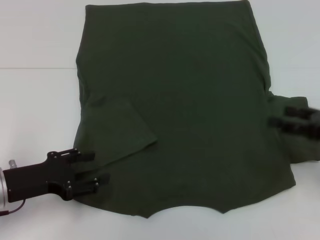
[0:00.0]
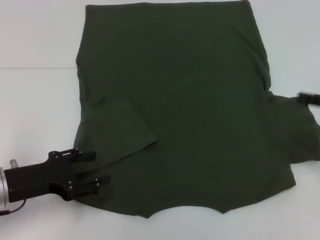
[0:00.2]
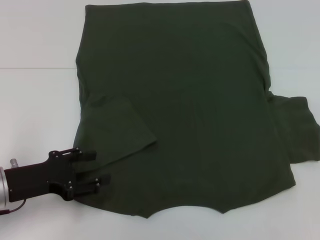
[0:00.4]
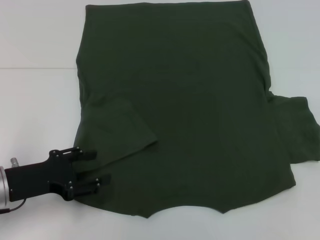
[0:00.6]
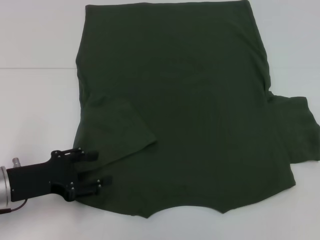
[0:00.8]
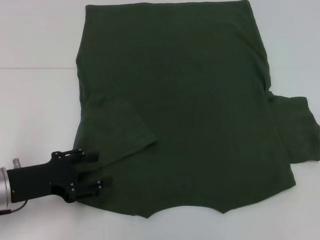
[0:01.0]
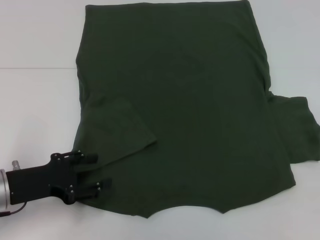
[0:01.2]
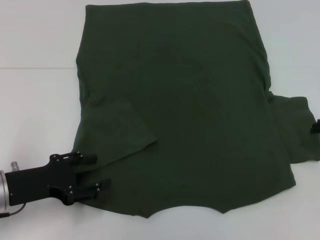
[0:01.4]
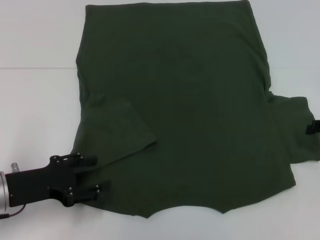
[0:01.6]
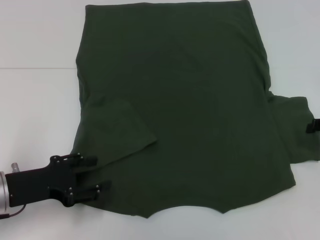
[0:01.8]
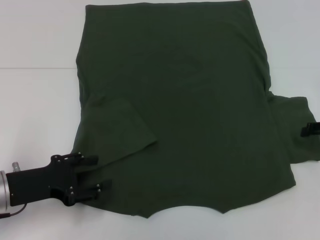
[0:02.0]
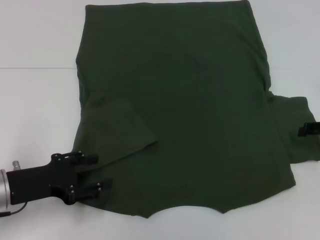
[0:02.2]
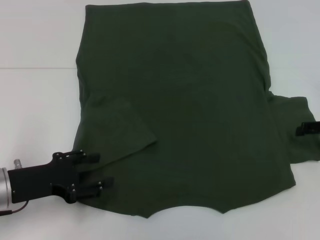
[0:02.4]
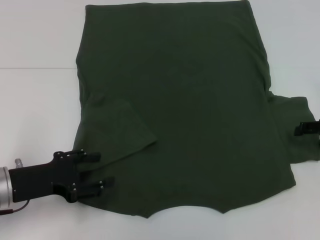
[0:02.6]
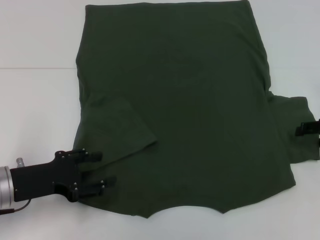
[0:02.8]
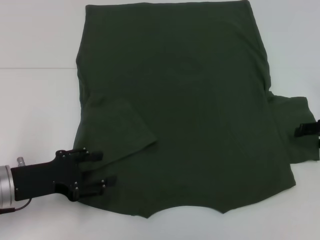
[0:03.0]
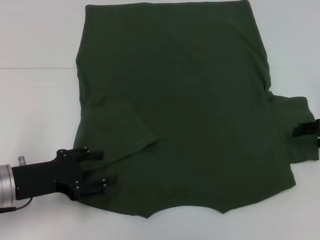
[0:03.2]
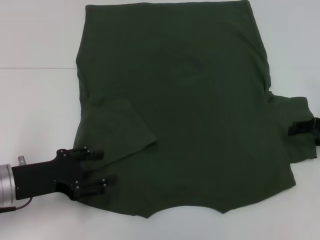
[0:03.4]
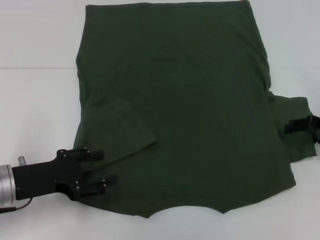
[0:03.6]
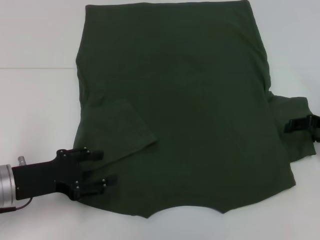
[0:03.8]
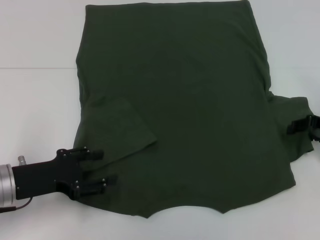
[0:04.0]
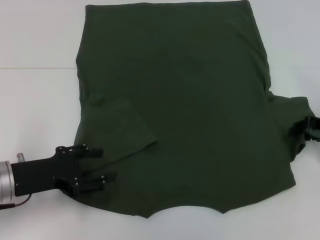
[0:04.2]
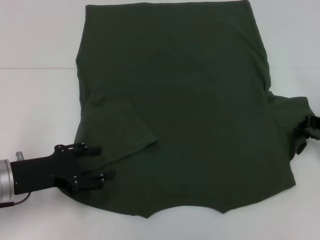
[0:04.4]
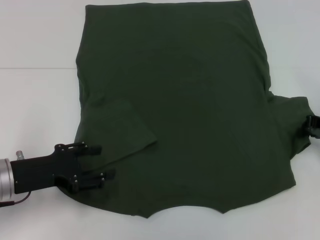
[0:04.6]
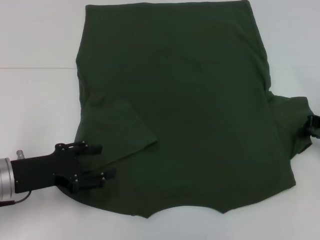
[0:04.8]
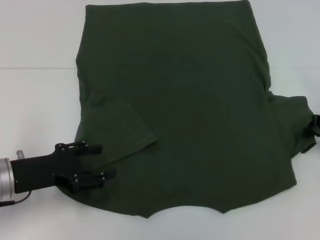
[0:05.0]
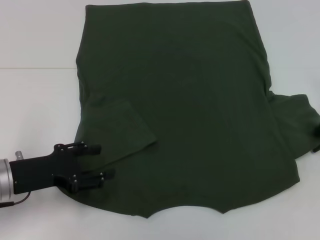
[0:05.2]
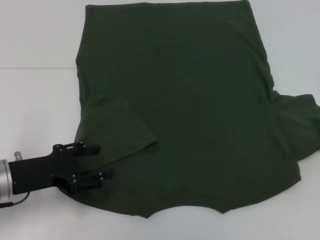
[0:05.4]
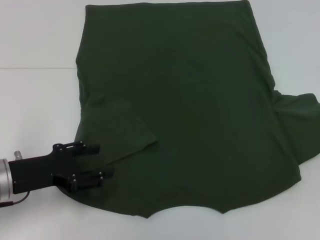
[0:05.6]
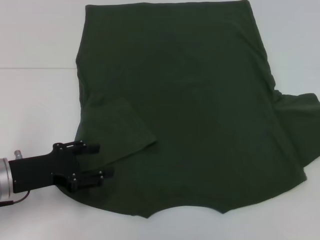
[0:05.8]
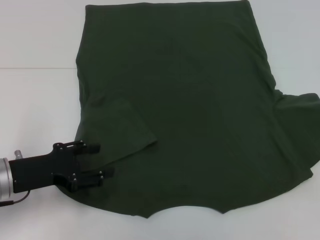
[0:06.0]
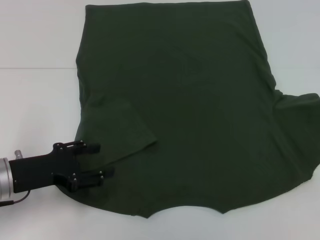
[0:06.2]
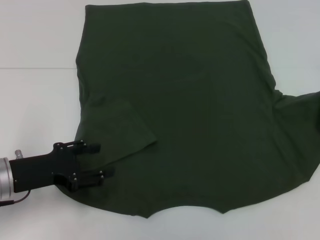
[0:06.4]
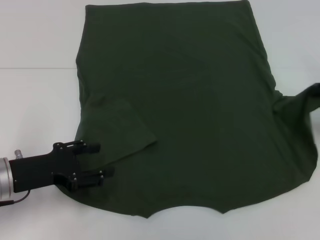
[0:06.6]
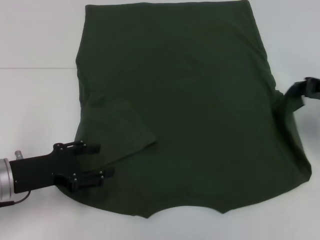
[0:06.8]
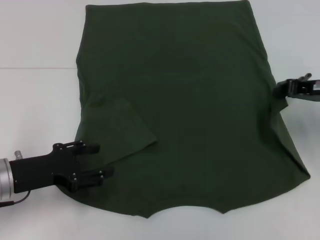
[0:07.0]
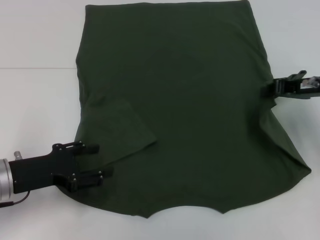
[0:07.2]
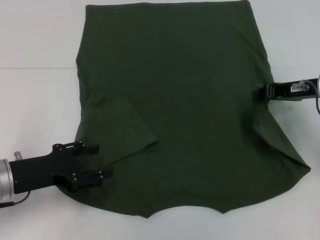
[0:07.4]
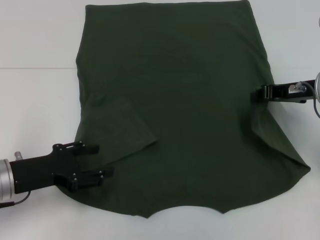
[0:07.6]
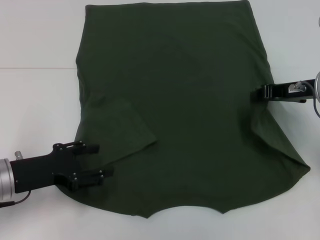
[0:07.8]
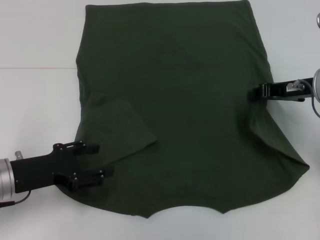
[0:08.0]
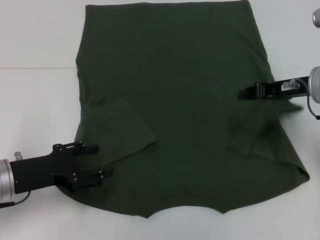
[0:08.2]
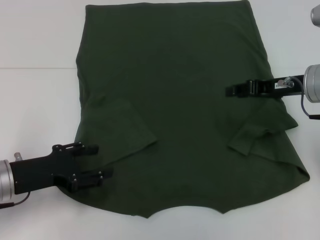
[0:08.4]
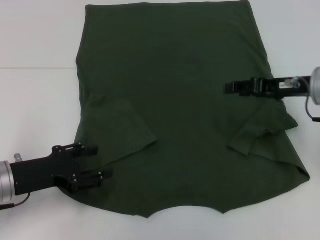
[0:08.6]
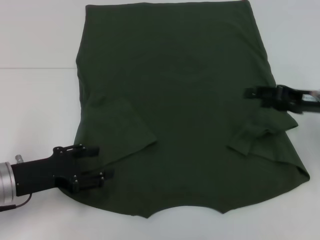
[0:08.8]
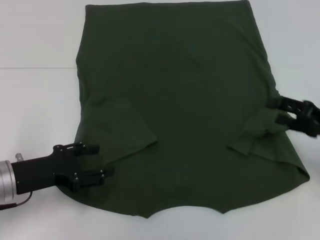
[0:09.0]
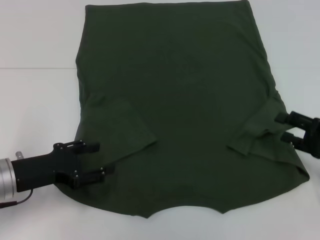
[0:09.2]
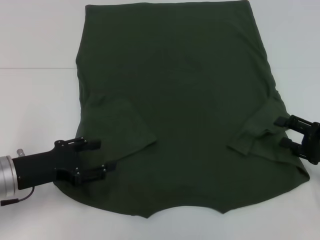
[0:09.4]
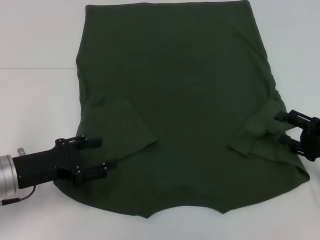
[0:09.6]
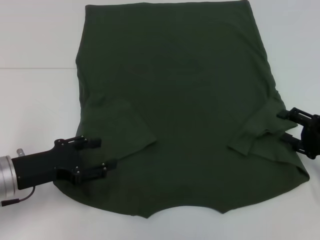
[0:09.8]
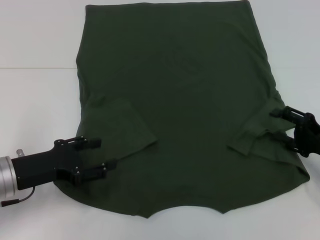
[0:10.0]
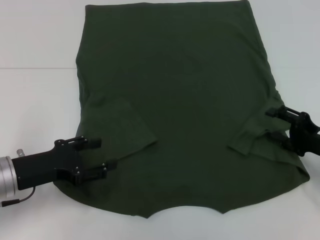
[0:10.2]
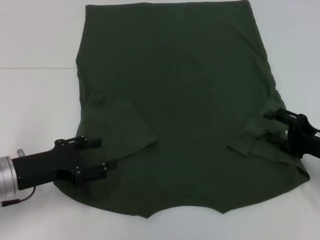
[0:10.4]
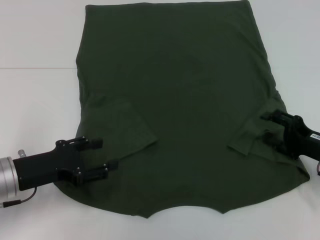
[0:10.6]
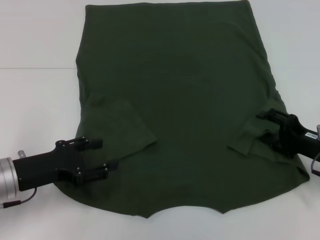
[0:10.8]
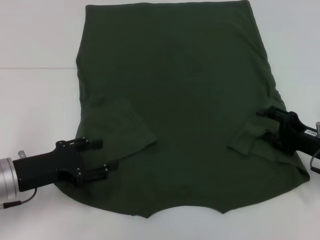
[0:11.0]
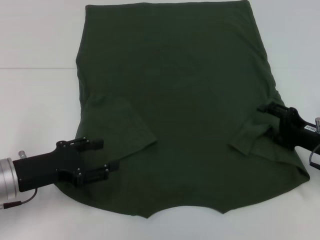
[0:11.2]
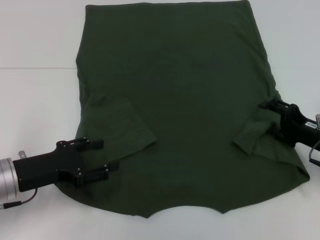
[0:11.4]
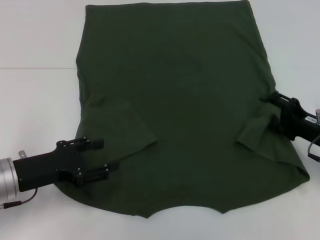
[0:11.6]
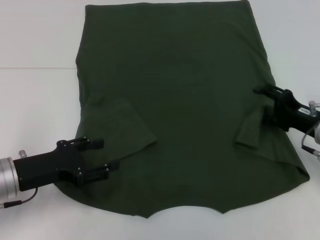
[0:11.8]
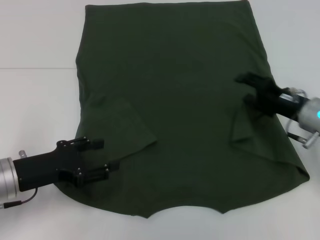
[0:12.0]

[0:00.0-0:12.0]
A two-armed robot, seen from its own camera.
0:00.0 to 0:01.6: The right gripper goes some 5 cm forward.
0:01.6 to 0:03.0: The grippers move only a little.
0:03.0 to 0:04.4: The right gripper closes.
0:04.4 to 0:06.0: The right gripper moves to the right, about 5 cm, and closes.
0:06.0 to 0:07.6: The right gripper goes about 10 cm to the left.
0:07.6 to 0:09.0: The right gripper goes roughly 10 cm backward, to the right and downward, and opens its fingers.
0:09.0 to 0:10.4: The right gripper shifts by roughly 5 cm.
0:10.4 to 0:12.0: The right gripper travels forward and to the left by roughly 10 cm.

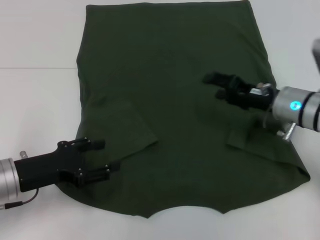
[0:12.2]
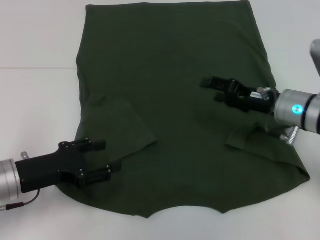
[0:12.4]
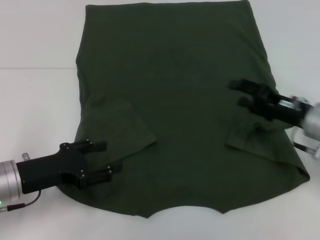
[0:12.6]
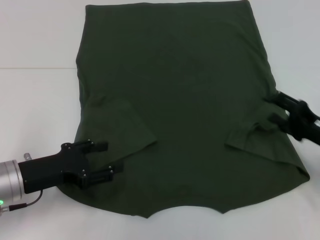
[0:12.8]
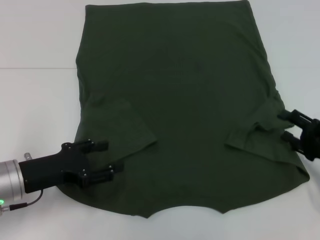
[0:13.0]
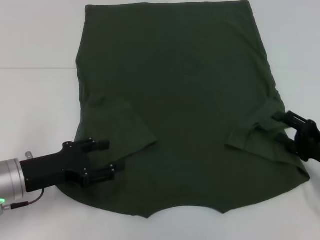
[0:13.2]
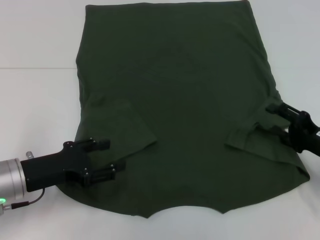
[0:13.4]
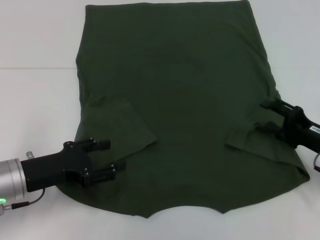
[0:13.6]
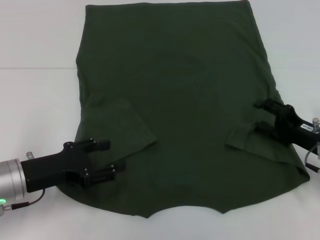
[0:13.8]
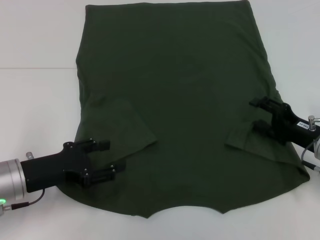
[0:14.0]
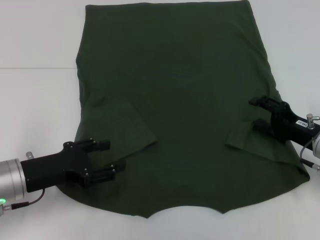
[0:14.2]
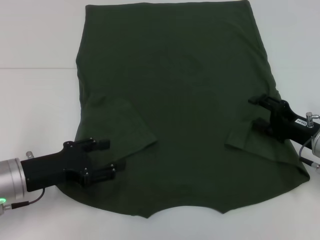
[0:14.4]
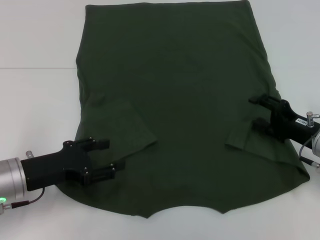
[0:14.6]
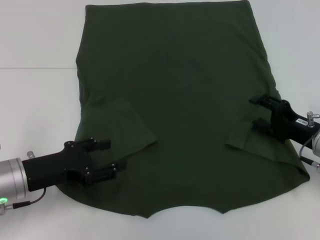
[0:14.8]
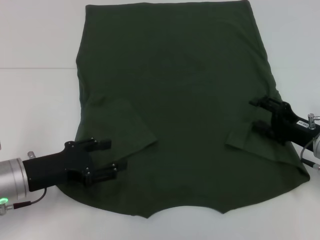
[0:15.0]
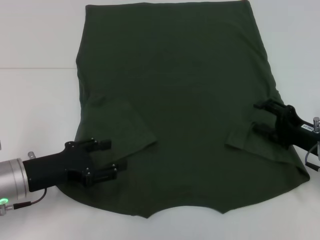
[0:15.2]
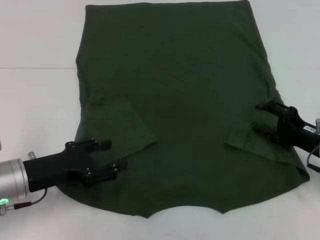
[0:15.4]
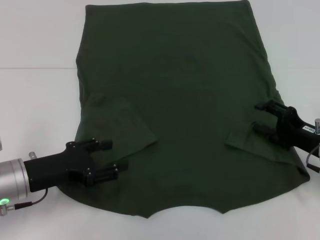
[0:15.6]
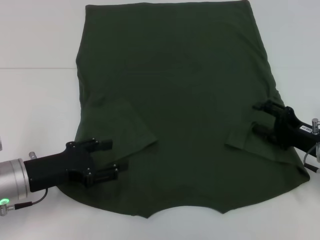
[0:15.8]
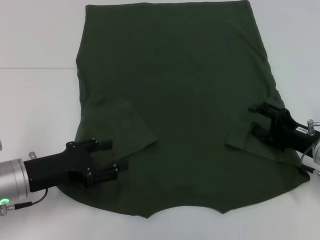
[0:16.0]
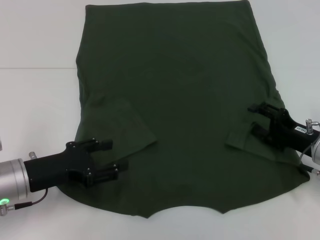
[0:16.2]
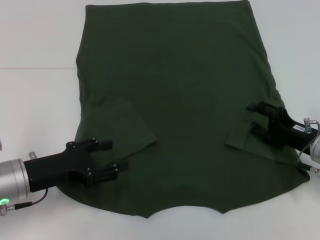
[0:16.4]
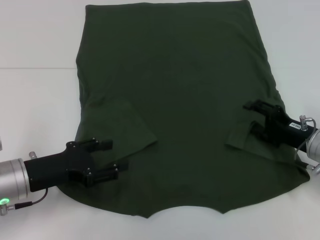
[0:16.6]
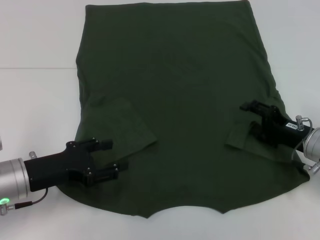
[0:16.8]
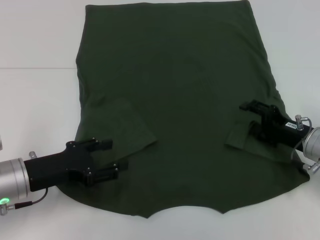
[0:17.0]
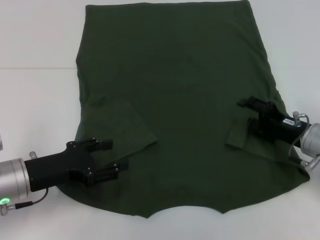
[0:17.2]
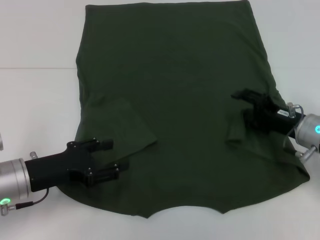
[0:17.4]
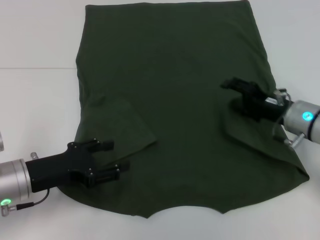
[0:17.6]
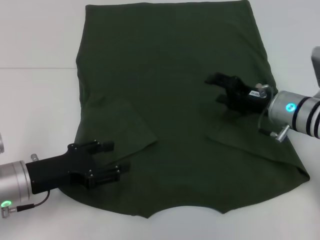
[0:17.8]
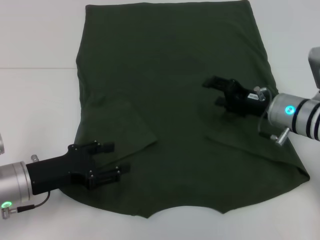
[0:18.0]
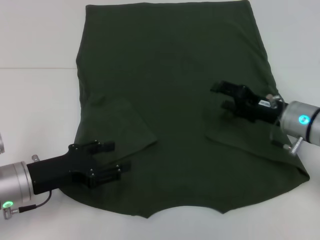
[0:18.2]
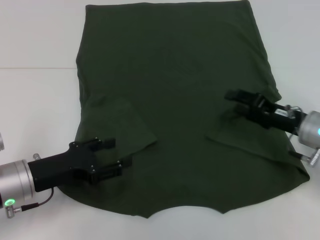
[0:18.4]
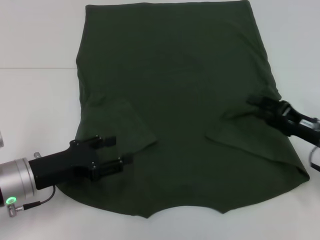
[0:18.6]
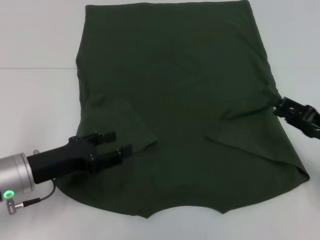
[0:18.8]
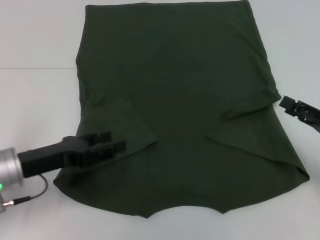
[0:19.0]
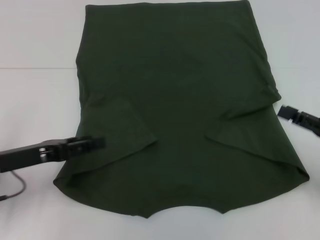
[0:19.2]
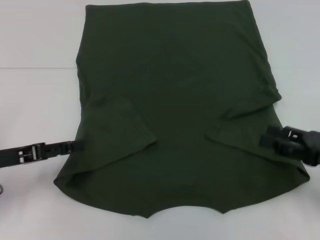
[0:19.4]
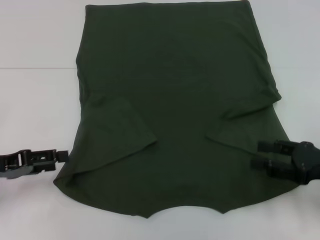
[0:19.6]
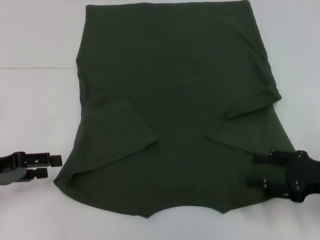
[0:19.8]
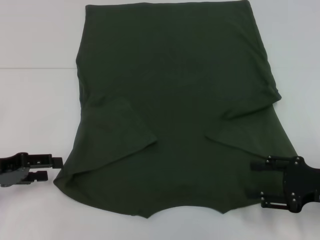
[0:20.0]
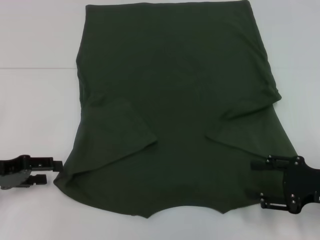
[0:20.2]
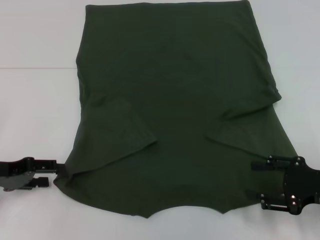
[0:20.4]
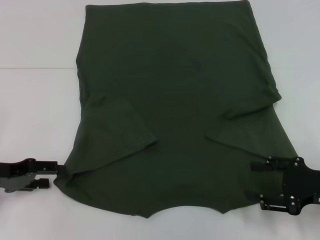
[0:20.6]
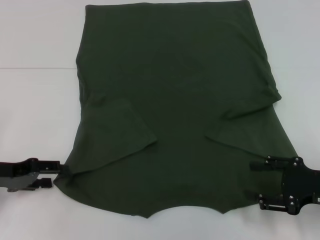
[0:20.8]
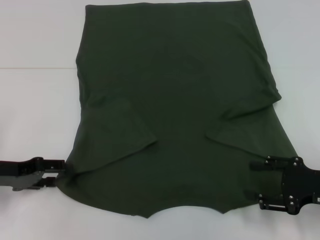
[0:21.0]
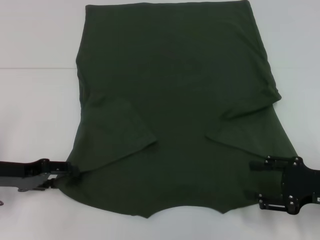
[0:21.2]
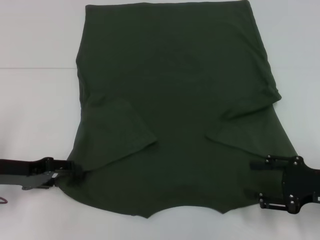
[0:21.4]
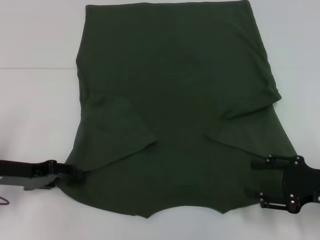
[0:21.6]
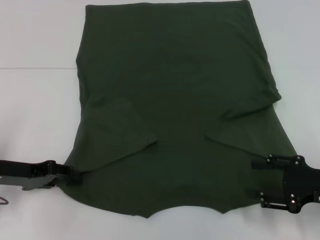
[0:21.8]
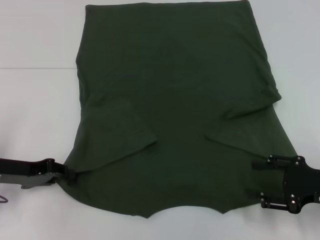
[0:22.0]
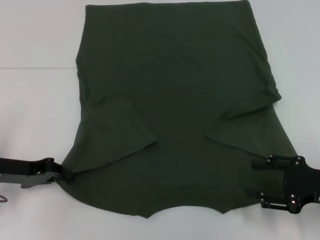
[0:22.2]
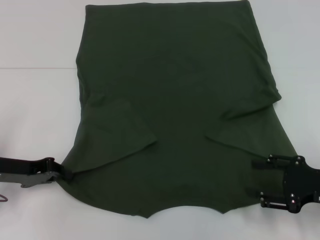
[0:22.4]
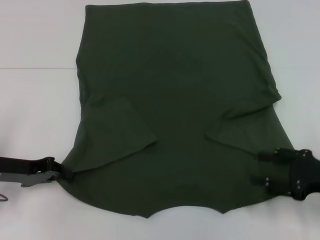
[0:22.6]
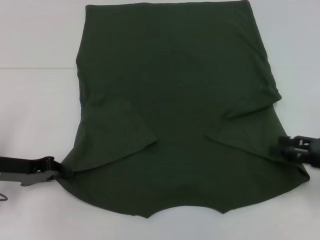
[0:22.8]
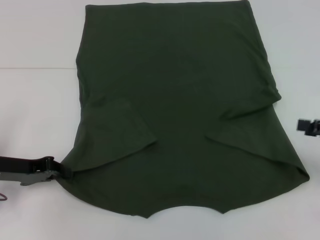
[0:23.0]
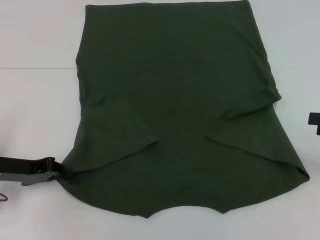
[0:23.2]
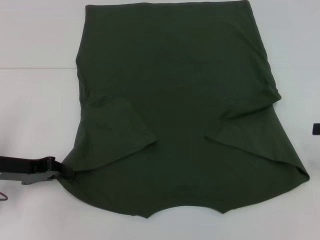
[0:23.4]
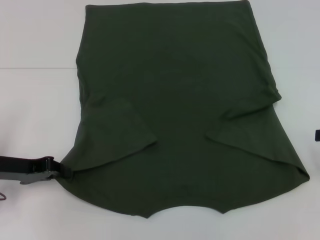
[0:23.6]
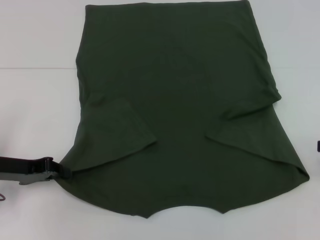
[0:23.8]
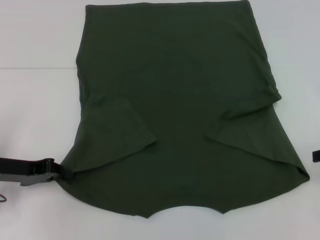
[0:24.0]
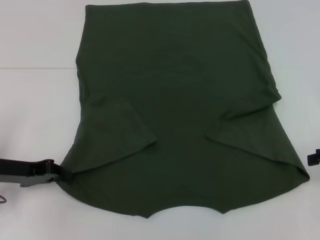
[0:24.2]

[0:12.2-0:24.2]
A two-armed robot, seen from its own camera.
Step, 0:12.2 to 0:17.6: Fold the bottom right sleeve with your right hand.
Step, 0:17.8 to 0:22.8: Grab the bottom left corner with your left hand.
0:12.2 to 0:13.8: The right gripper is displaced to the right and backward by about 10 cm.
0:13.8 to 0:15.2: Both grippers stay about where they are.
0:15.2 to 0:16.6: The grippers stay close to where they were, moving slightly.
0:16.6 to 0:18.2: The right gripper ends up approximately 5 cm from where it was.
0:18.2 to 0:19.8: The left gripper moves to the left, about 10 cm; the right gripper goes some 15 cm backward and to the right.
0:19.8 to 0:21.2: The grippers move only a little.
0:21.2 to 0:22.6: The left gripper closes up.
0:22.6 to 0:24.2: The right gripper travels to the right, forward and upward by roughly 10 cm.
